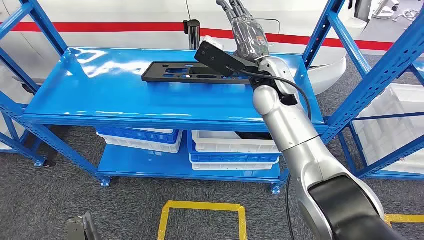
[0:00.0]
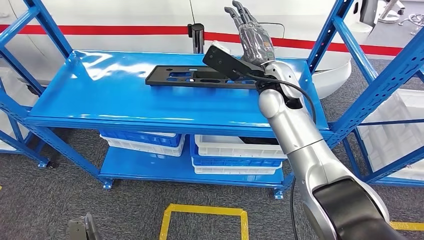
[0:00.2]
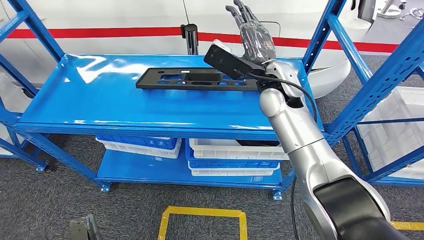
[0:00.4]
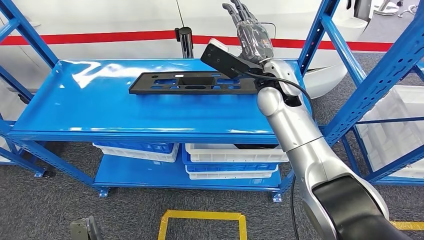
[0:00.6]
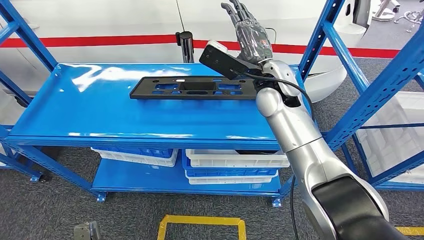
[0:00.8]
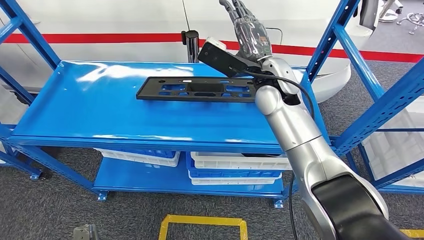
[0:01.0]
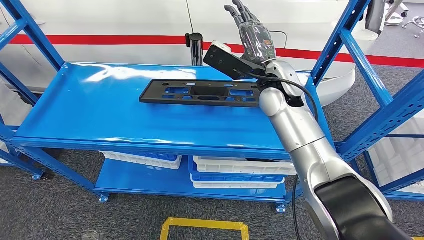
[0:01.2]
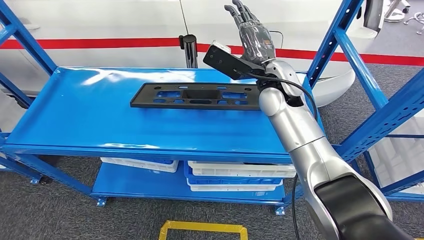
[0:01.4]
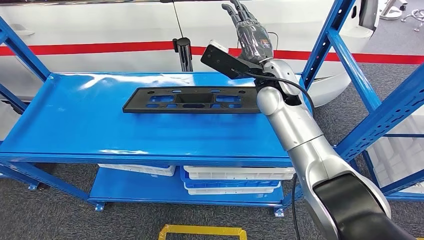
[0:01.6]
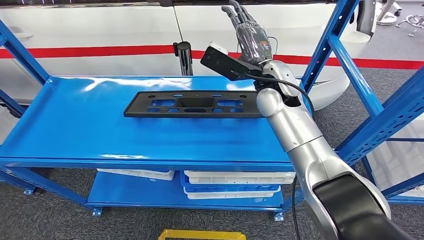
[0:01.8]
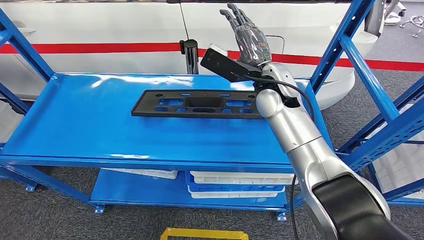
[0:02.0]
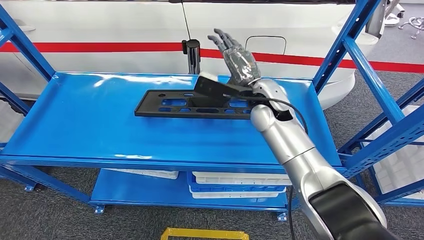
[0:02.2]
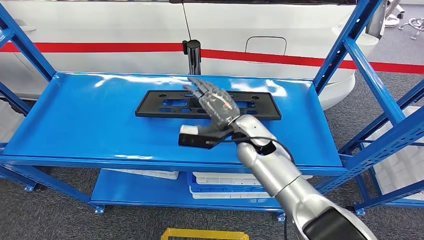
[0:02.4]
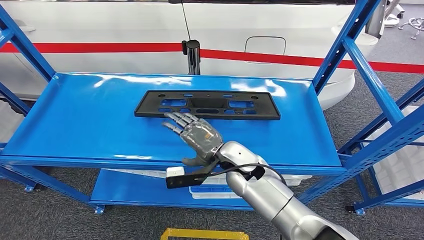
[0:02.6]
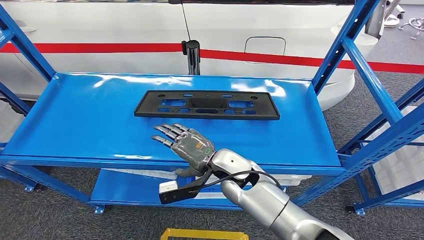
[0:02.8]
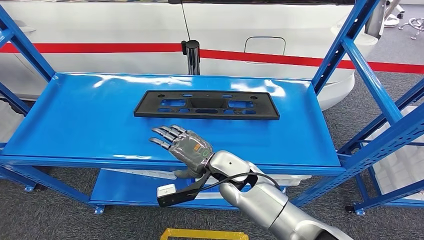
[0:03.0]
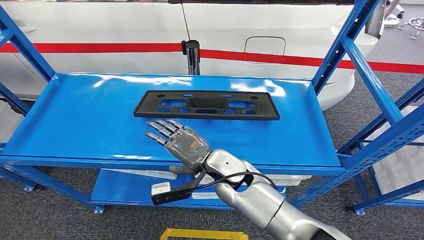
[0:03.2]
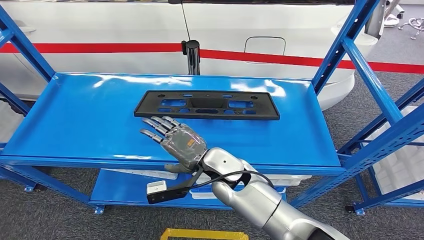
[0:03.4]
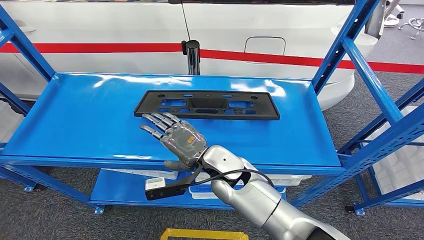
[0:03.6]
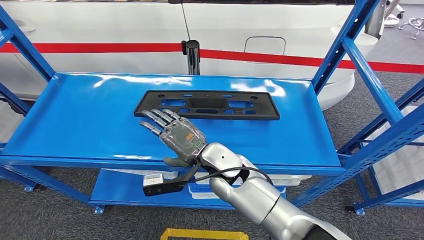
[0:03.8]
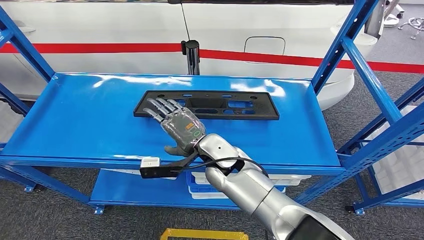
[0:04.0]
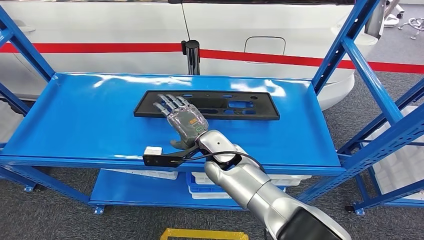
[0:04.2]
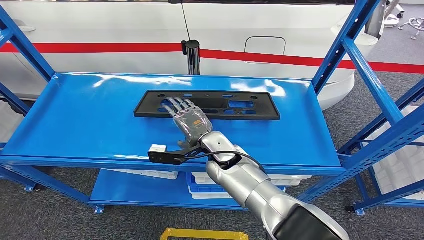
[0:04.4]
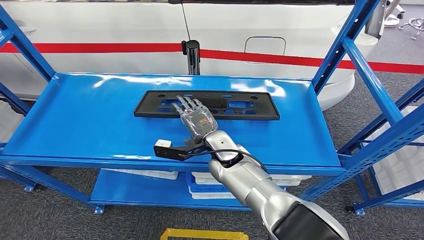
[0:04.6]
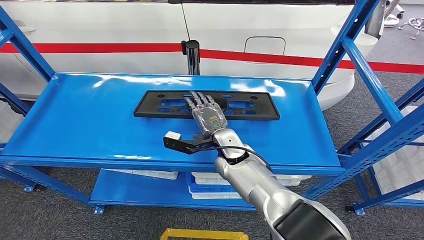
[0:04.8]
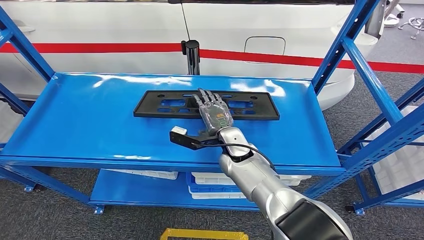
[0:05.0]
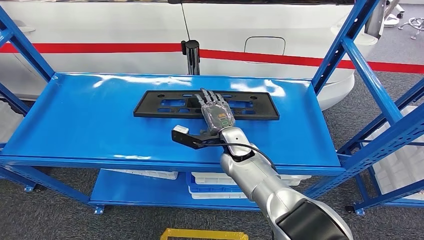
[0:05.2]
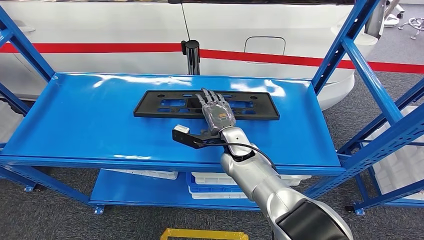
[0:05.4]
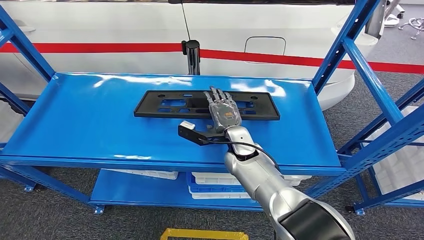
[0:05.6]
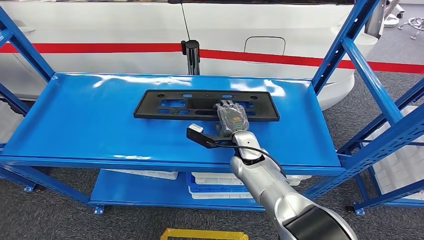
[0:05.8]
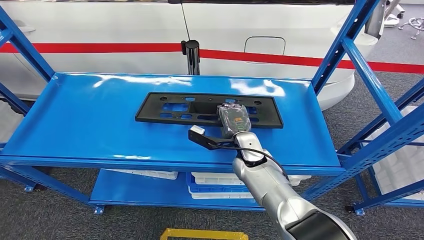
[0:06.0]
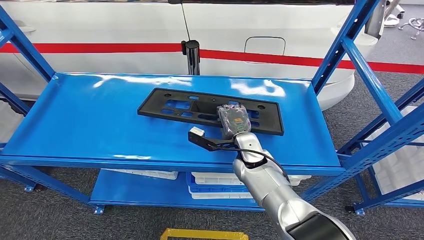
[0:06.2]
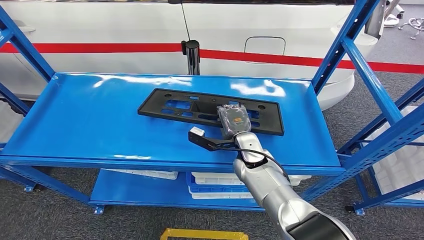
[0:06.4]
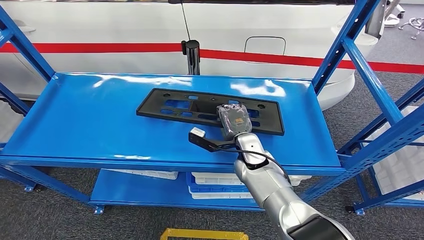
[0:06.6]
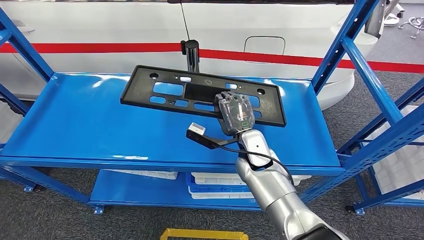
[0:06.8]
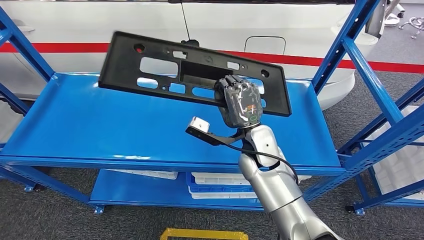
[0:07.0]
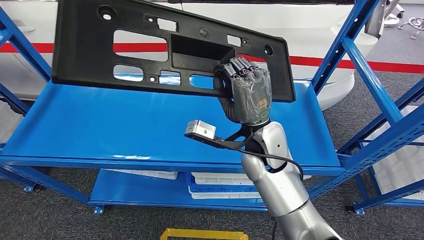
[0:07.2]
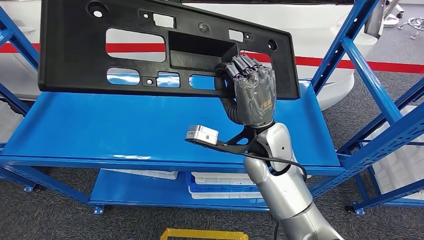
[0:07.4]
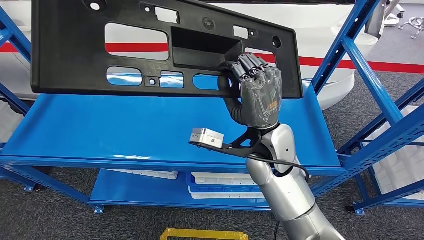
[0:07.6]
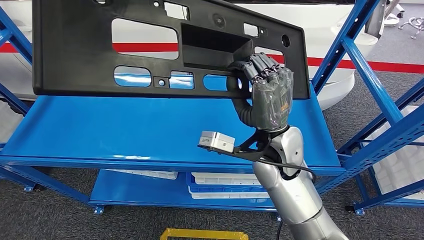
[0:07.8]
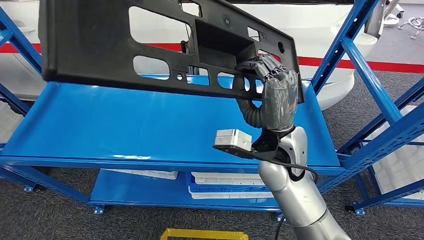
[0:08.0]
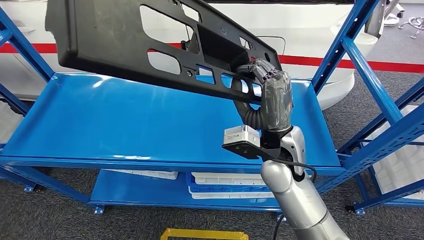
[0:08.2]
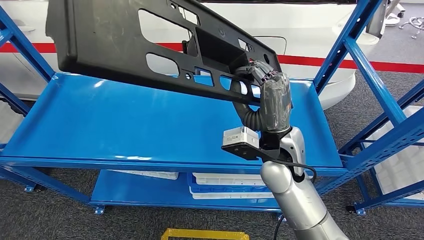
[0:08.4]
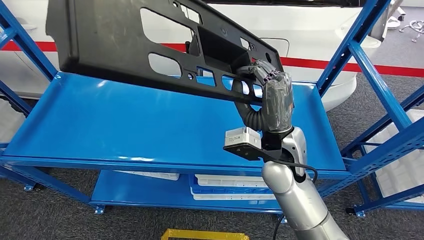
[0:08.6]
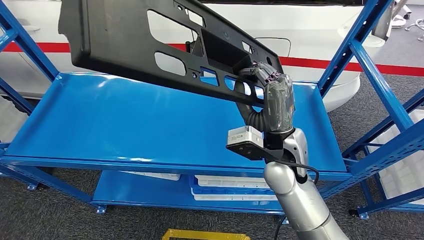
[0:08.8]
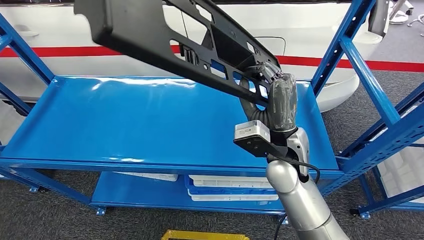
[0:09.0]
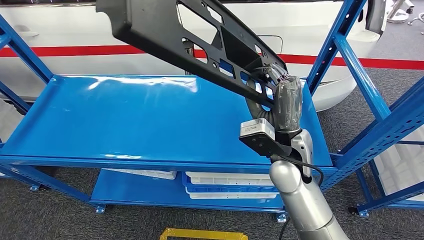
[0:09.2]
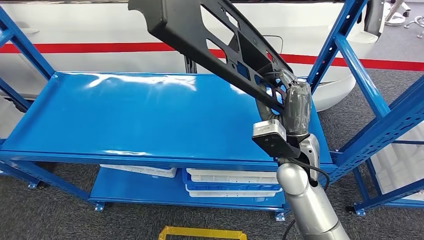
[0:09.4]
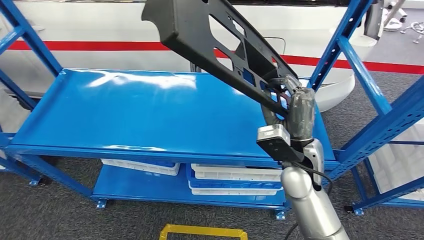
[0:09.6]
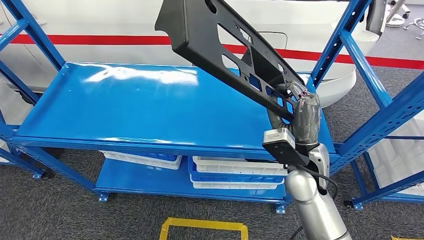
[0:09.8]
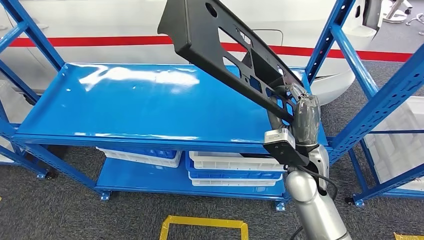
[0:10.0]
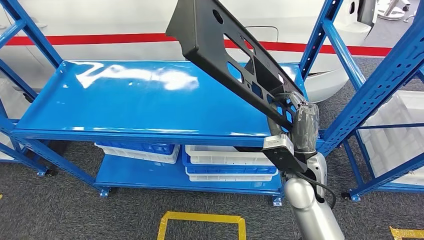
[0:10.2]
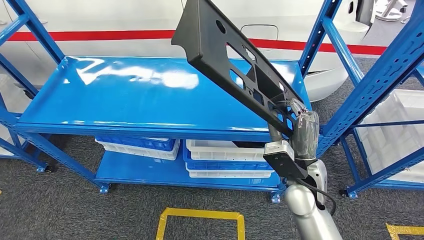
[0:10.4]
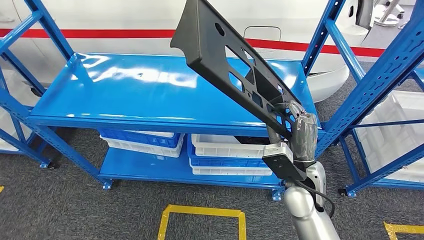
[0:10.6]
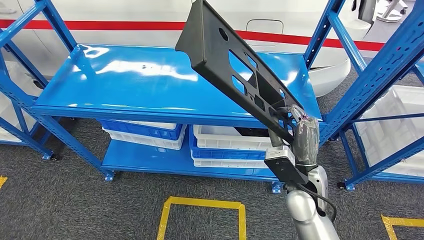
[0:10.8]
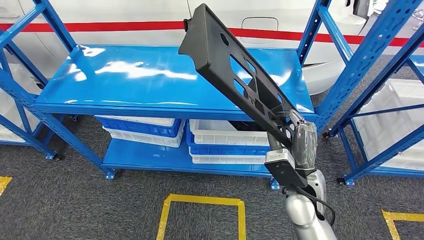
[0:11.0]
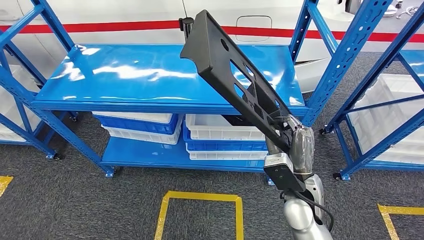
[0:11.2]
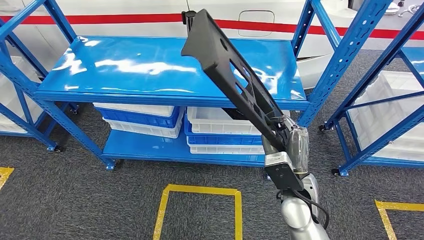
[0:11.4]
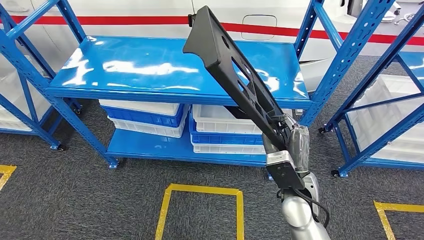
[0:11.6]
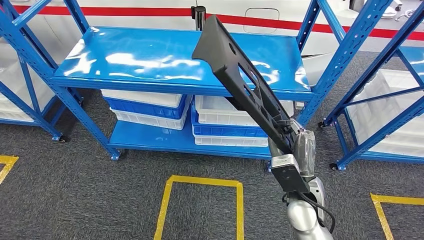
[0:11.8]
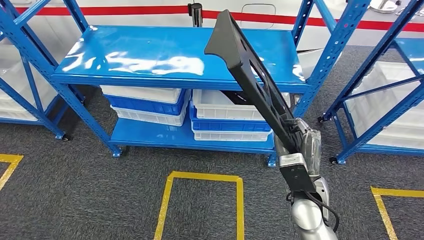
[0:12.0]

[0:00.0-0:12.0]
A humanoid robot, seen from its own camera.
Step, 0:00.0 to 0:10.0: Pick up the large material from the shelf.
0:03.0 to 0:04.4: The right hand is displaced forward by approximately 5 cm.
0:04.4 to 0:06.0: The right hand heads to the right, covering approximately 10 cm.

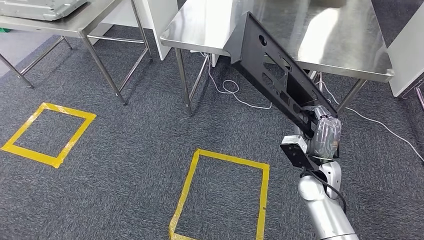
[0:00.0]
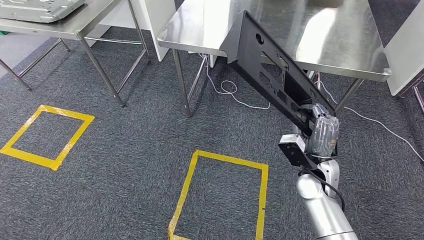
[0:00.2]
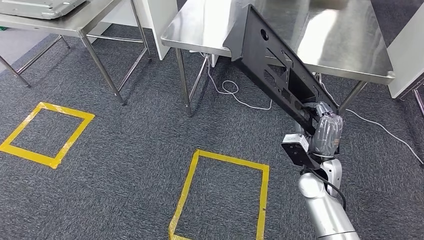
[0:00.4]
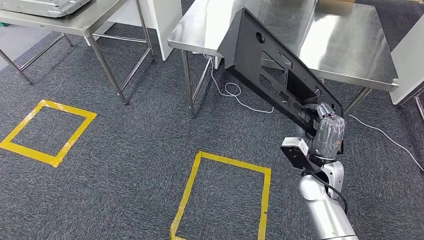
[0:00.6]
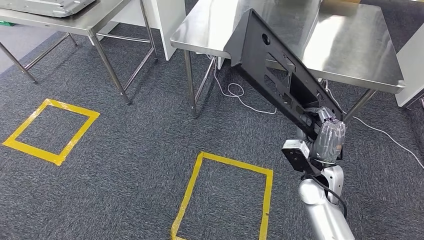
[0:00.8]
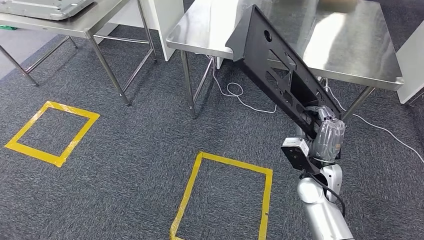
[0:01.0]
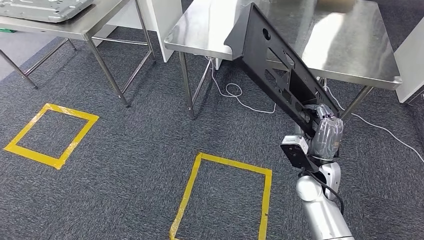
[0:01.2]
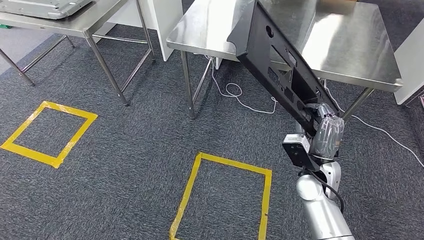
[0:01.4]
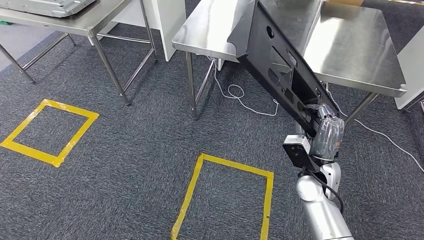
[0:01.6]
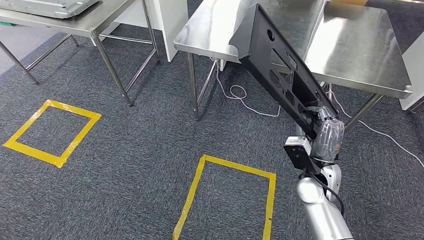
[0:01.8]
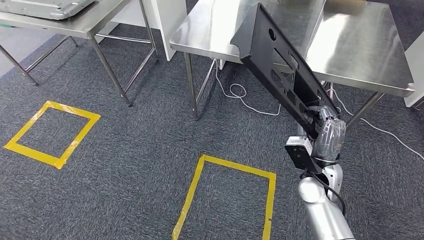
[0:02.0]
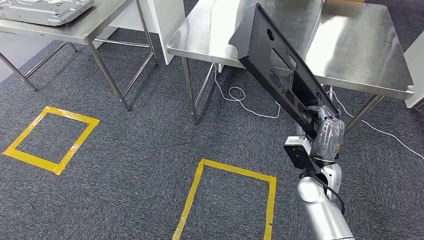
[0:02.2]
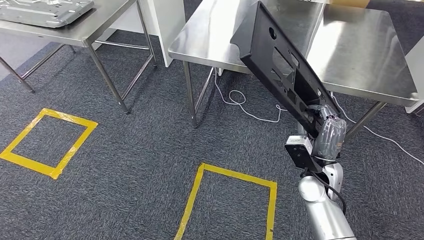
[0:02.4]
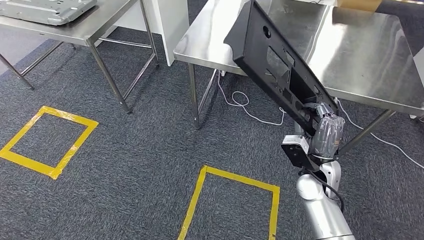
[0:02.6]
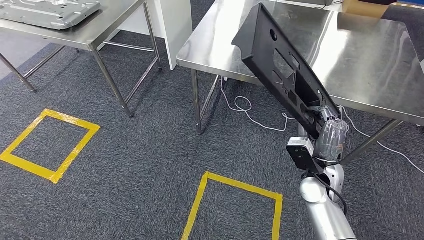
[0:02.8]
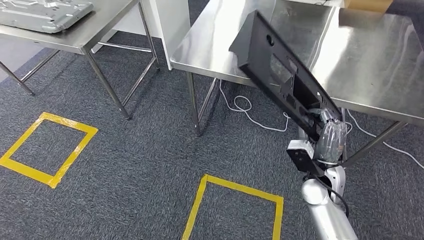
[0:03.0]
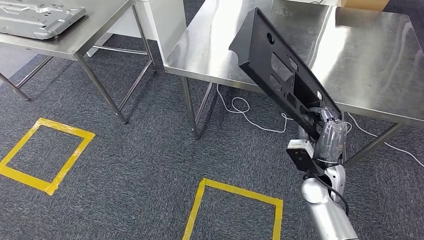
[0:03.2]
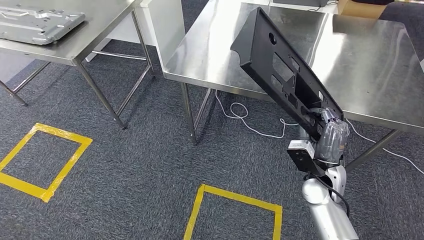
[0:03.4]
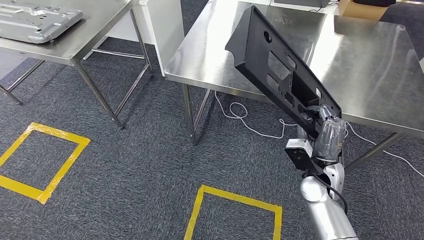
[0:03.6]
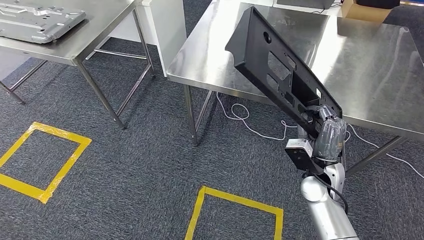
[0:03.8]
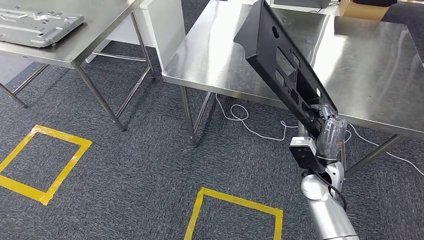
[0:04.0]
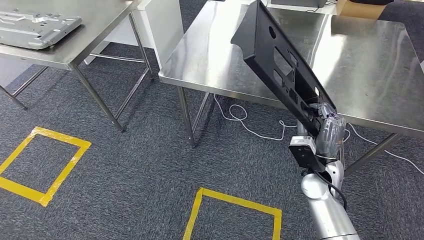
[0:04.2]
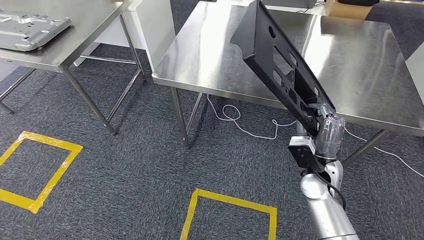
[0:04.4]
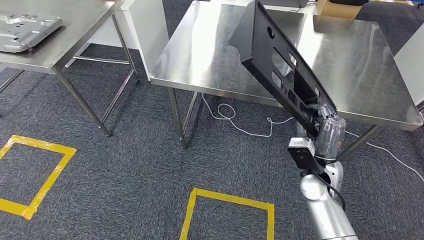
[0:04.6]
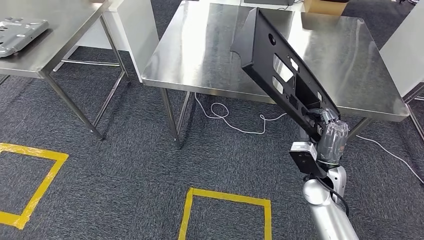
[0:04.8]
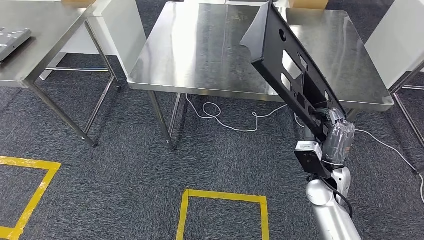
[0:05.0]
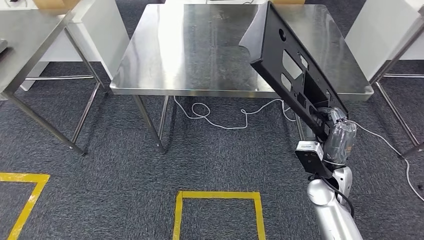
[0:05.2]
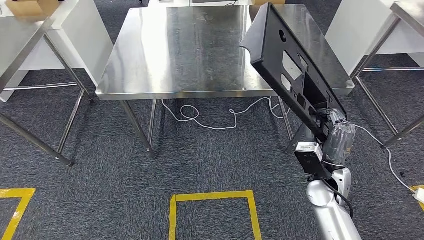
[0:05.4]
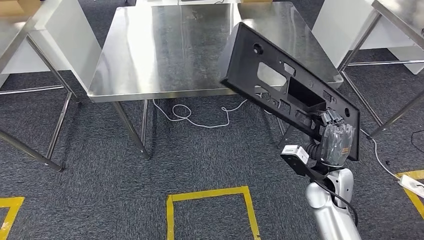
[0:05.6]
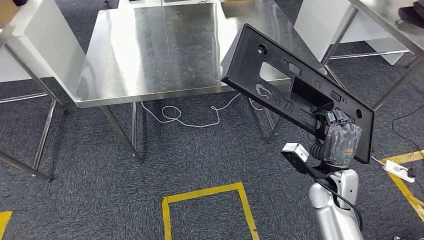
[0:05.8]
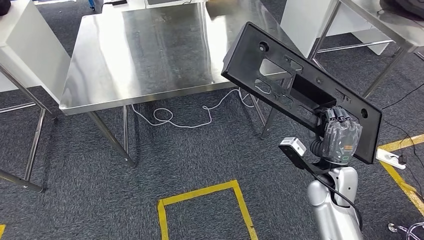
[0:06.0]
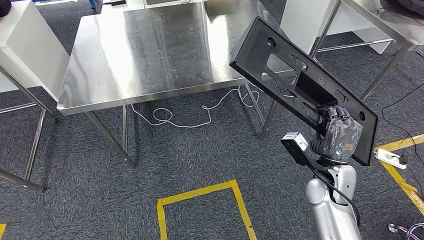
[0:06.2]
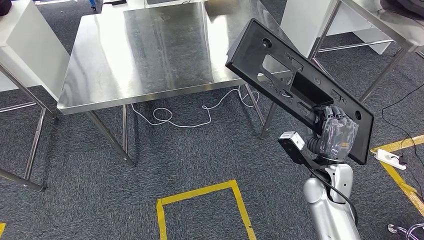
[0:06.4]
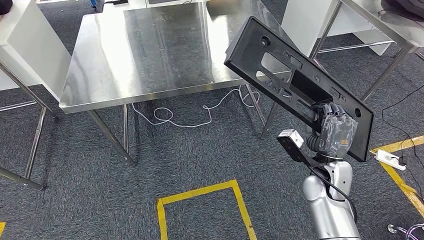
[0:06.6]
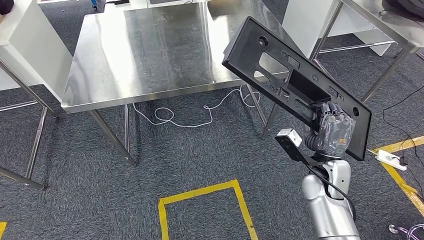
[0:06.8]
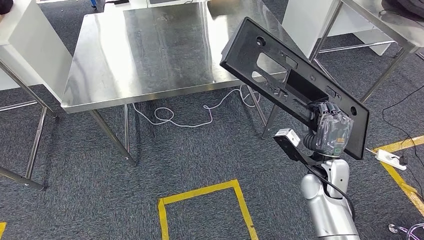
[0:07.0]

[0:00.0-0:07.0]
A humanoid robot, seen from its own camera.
Step, 0:00.0 to 0:05.6: Move the large material to the workbench.
0:00.0 to 0:01.4: The two hands keep their place.
